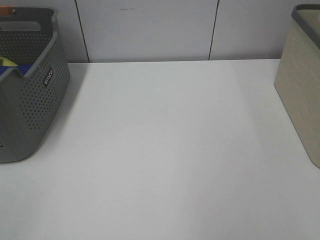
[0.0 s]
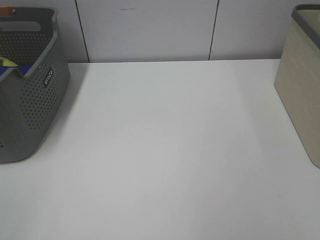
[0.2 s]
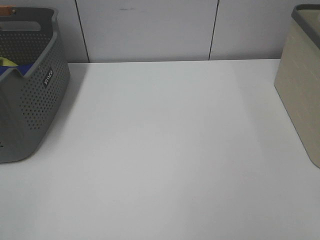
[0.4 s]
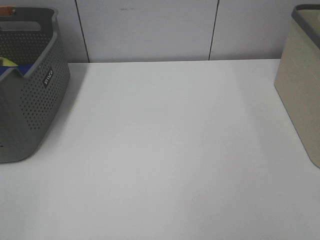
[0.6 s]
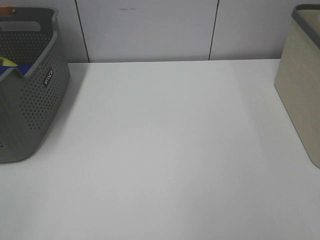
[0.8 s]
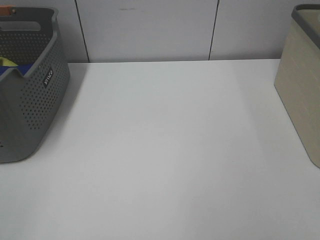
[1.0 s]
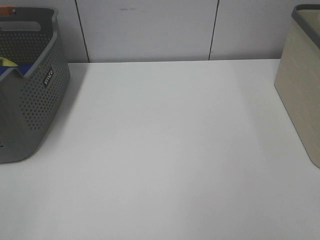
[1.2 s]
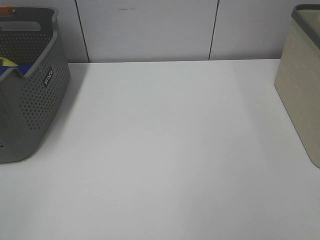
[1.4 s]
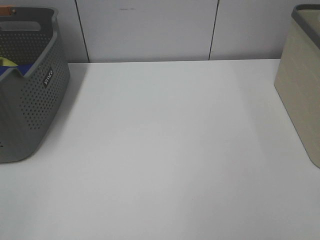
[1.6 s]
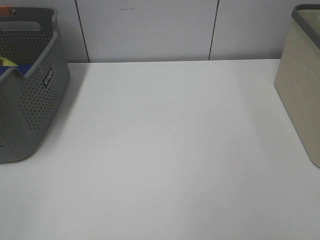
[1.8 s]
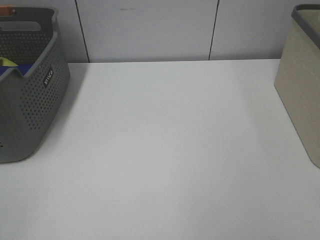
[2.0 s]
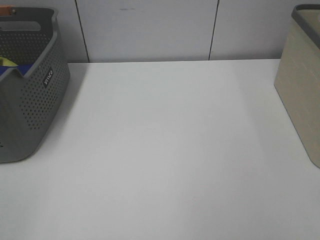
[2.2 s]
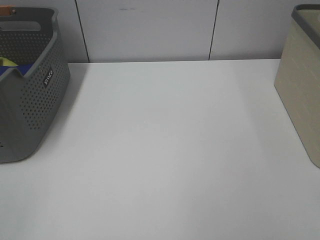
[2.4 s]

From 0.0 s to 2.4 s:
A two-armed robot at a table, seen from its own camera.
From 1.2 s to 2.4 s: Neither gripper changes place.

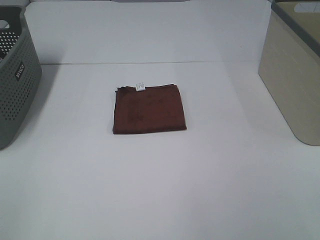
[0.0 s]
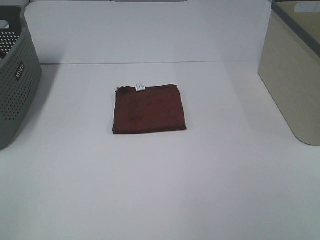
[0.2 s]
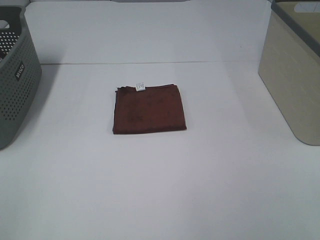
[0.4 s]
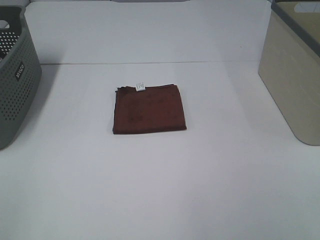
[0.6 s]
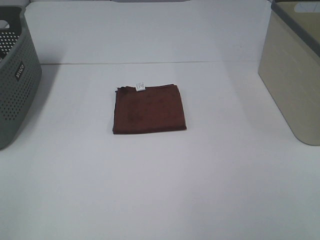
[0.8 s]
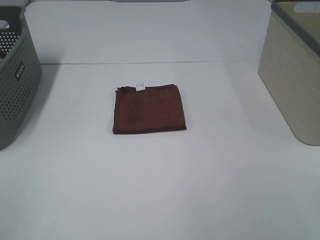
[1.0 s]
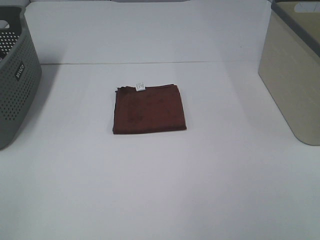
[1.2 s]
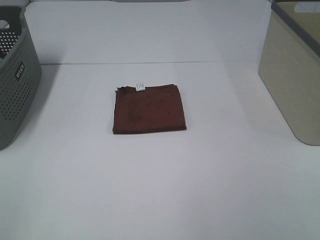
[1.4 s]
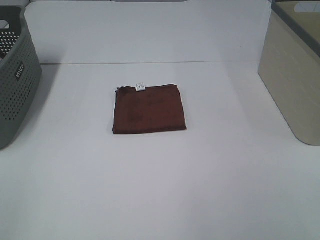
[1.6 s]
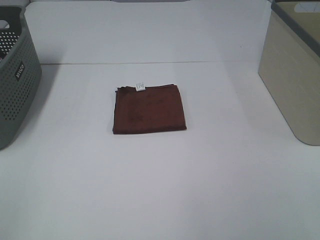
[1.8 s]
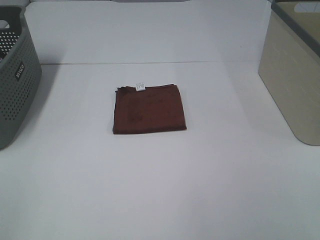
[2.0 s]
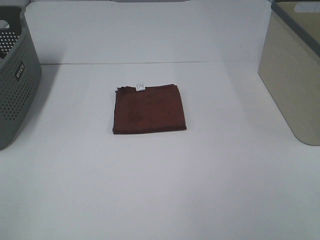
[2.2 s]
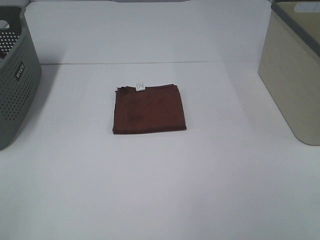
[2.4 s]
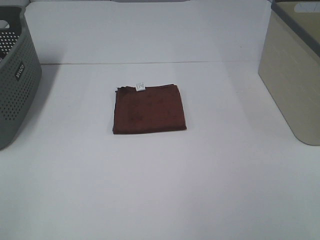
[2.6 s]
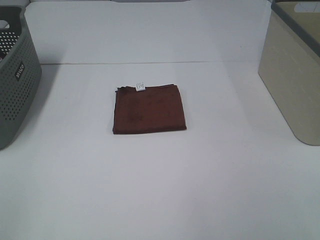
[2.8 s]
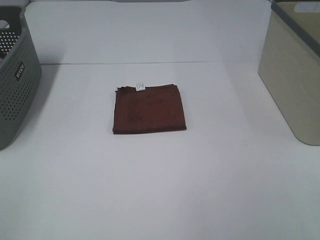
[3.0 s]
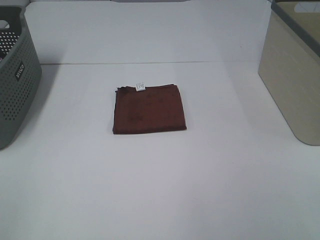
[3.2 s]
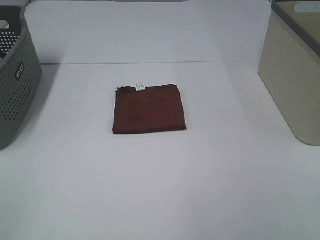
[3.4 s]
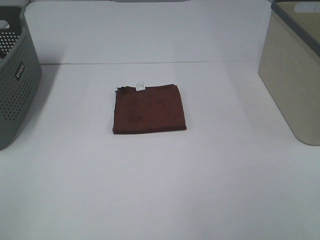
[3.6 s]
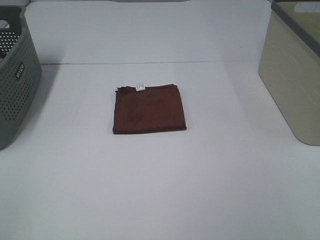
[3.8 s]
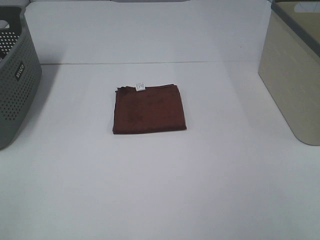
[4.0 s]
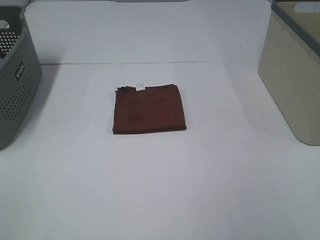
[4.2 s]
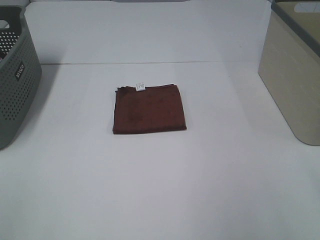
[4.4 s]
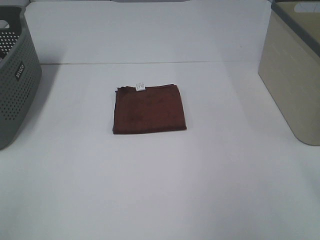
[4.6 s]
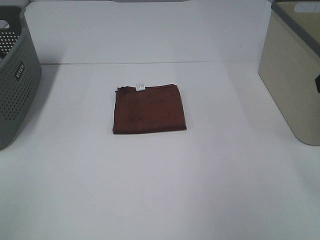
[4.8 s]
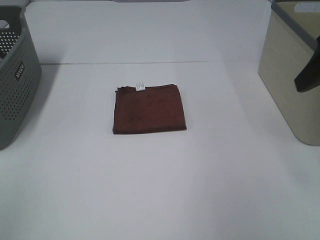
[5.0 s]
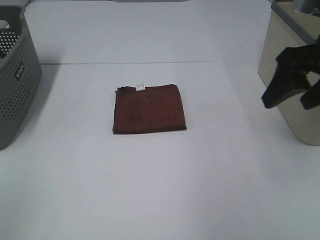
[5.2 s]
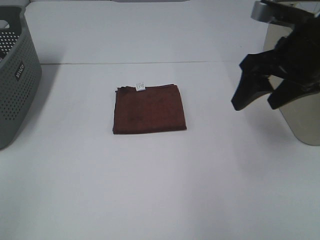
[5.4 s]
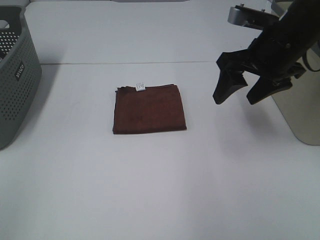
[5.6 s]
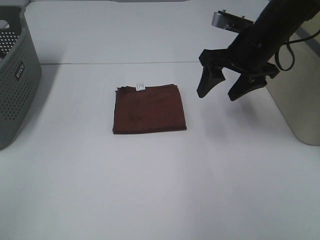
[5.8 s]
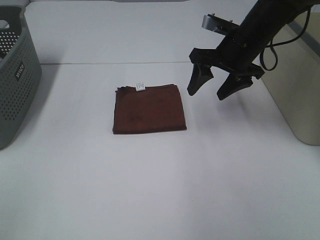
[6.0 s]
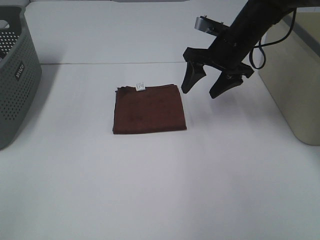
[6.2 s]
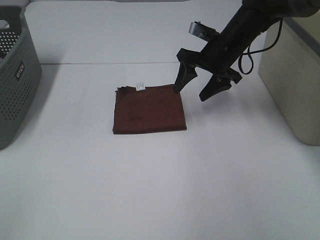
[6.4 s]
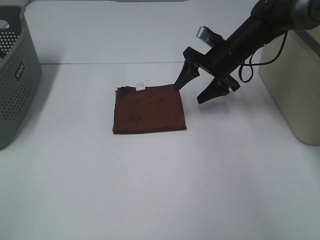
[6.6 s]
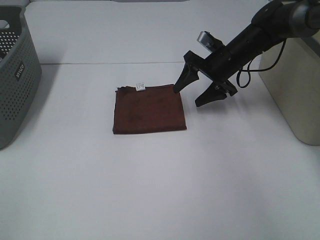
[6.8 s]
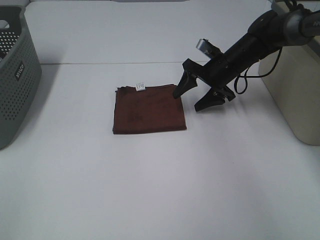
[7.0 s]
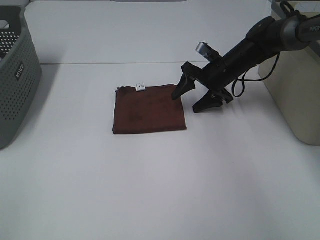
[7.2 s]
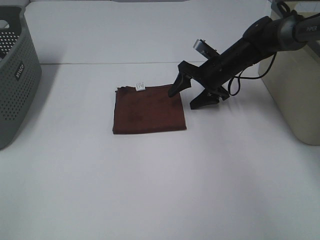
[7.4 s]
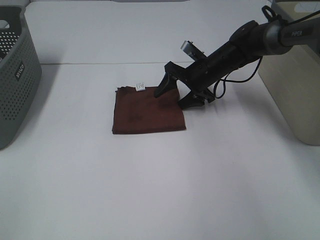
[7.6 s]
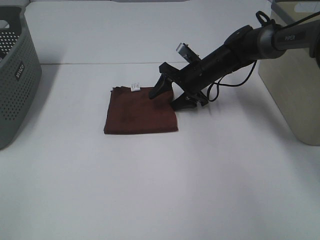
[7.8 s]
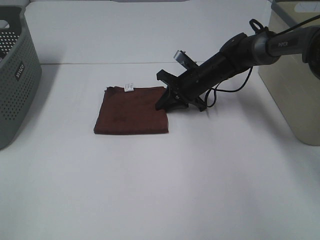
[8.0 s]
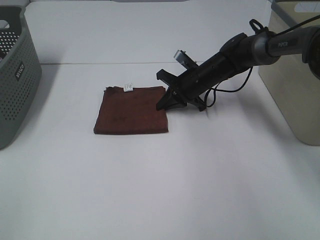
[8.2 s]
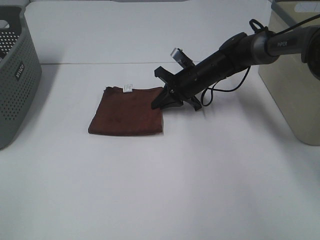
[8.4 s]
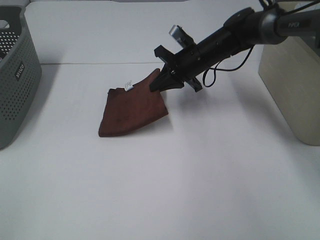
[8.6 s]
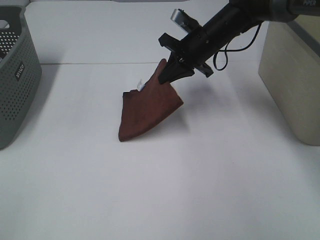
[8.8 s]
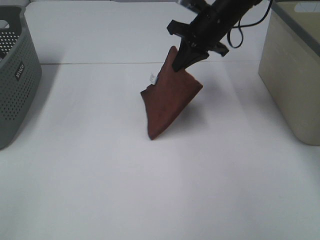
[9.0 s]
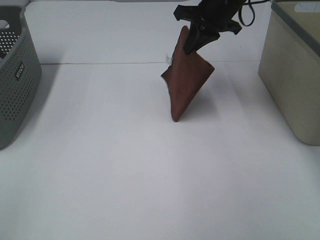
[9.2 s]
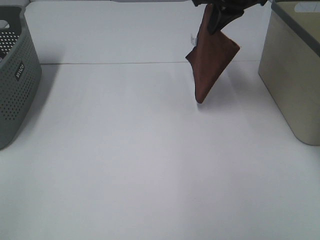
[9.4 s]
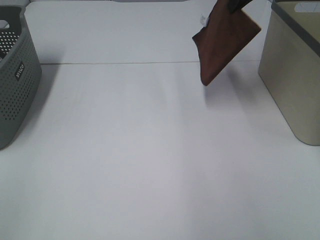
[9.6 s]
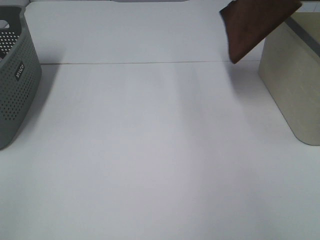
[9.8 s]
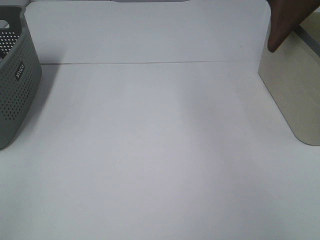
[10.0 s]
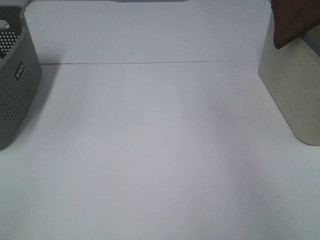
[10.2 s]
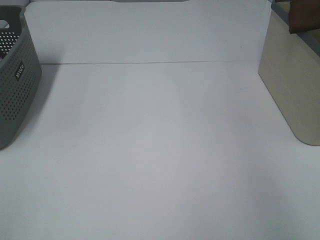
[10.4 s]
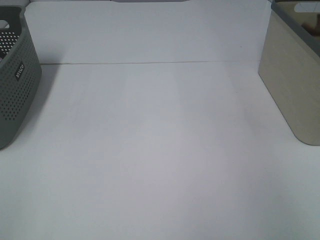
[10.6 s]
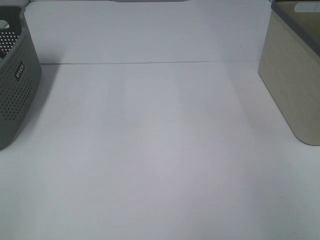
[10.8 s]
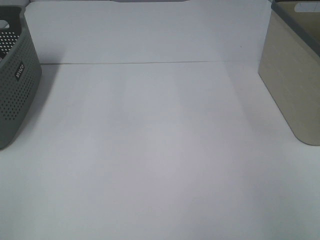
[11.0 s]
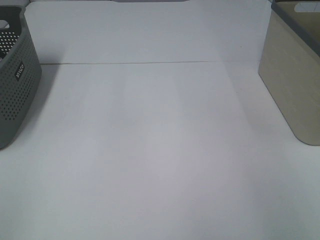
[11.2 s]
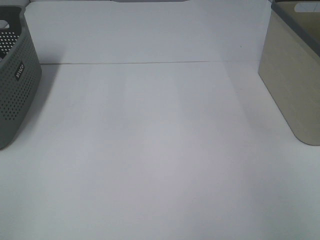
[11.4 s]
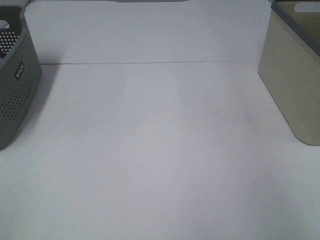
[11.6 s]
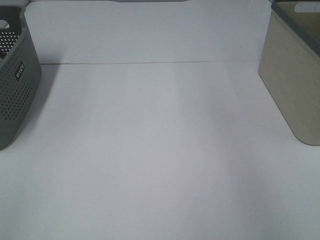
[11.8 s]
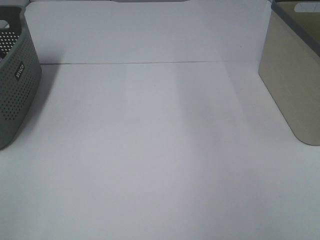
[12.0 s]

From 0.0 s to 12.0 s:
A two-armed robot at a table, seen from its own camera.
Step, from 0.0 s to 8.0 s: Right hand: grab the folded brown towel.
Step, from 8.2 s to 11.0 s: Right hand: place the brown towel in right basket.
From 0.0 s to 3.0 s: Neither gripper changes place.
From 4.4 s to 6.0 s: The right gripper travels forward, to the left and downward by some 35 cm.
From 6.0 s to 7.6 s: The right gripper goes some 15 cm downward and forward.
From 7.6 s to 9.0 s: The right gripper travels upward by approximately 15 cm, and closes.
From 9.0 s to 10.4 s: The right gripper heads to the right and upward, covering some 35 cm.
From 10.4 s to 12.0 s: The right gripper moves to the left, some 10 cm, and opens up.

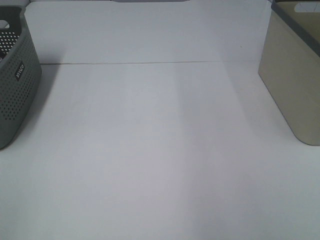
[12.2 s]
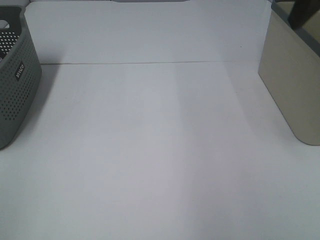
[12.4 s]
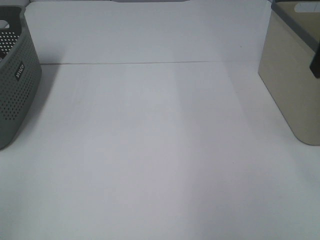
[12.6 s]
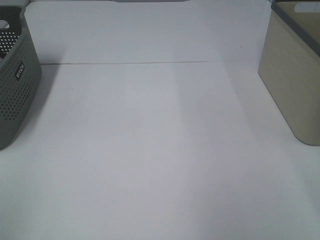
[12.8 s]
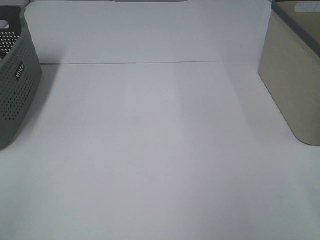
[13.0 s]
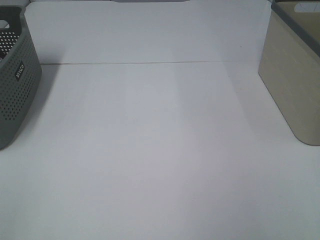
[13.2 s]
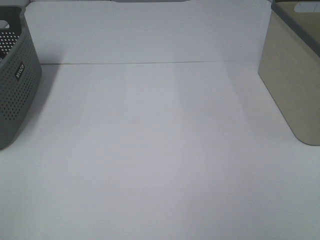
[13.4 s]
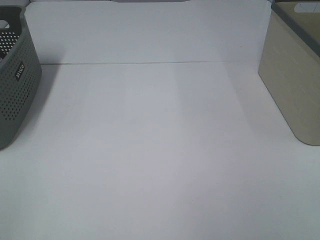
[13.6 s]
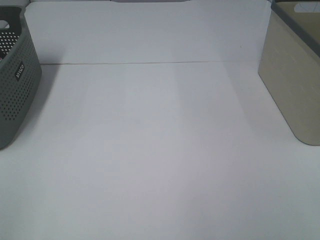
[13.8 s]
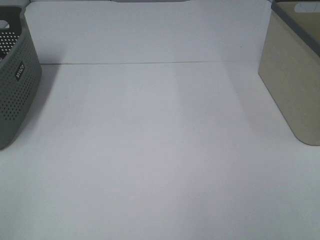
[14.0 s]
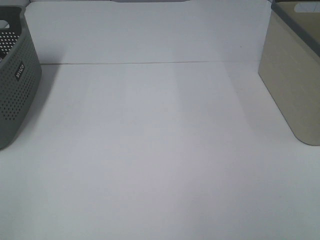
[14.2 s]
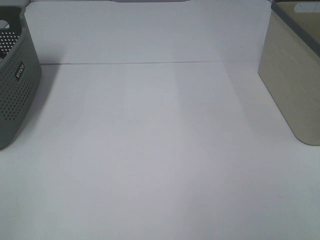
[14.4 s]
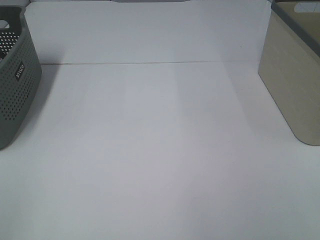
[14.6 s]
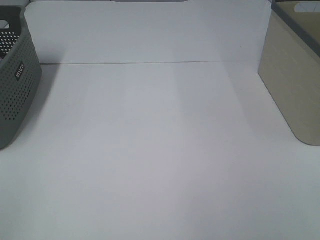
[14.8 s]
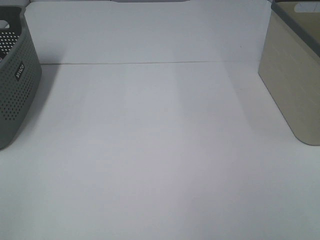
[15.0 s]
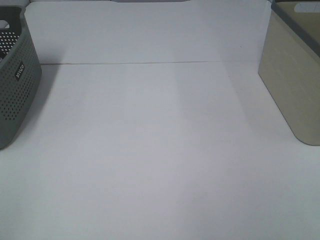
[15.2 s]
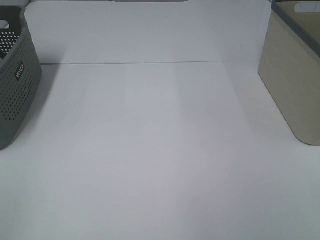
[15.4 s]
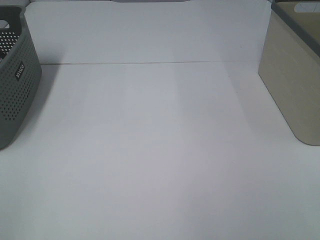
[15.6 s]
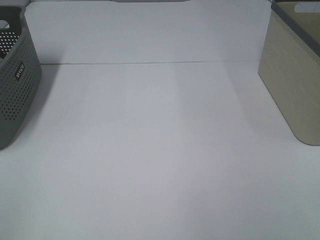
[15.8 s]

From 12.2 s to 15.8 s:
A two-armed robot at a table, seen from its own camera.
From 14.0 s to 15.8 s: The two grippers keep their place.

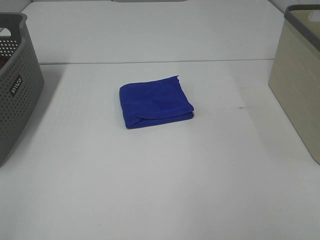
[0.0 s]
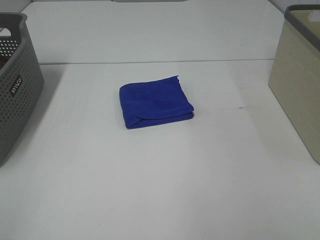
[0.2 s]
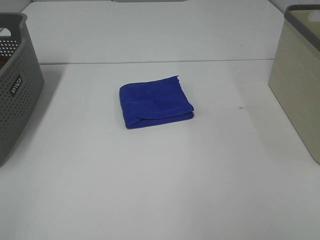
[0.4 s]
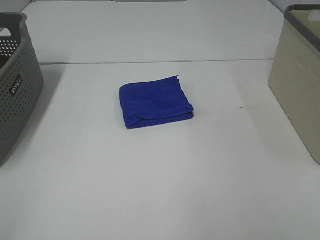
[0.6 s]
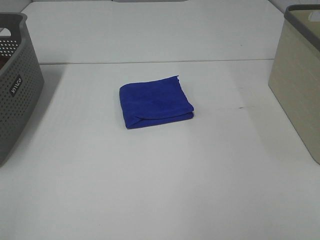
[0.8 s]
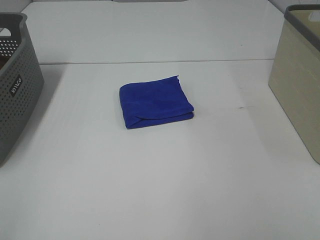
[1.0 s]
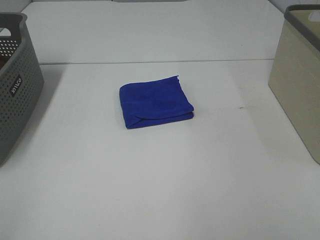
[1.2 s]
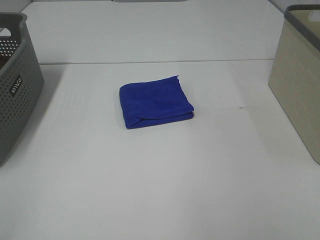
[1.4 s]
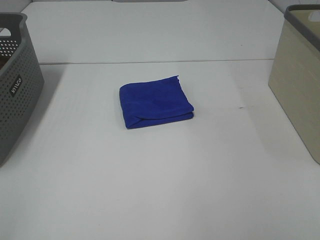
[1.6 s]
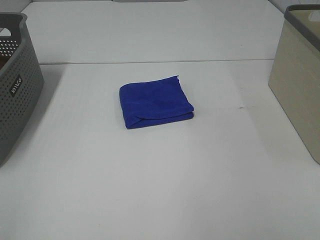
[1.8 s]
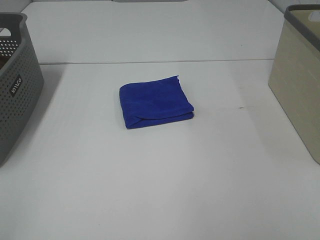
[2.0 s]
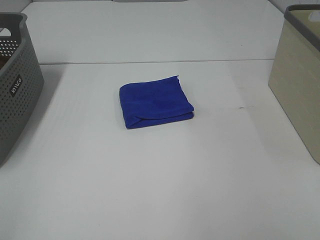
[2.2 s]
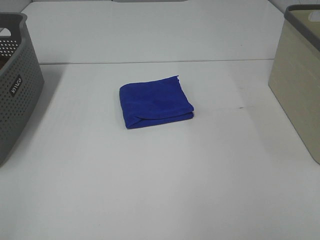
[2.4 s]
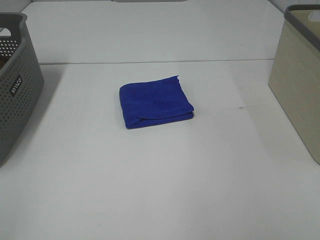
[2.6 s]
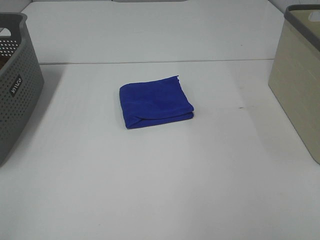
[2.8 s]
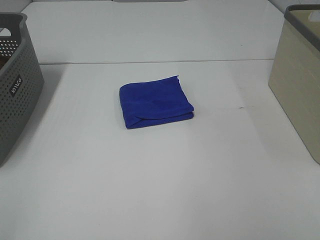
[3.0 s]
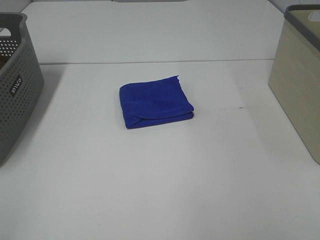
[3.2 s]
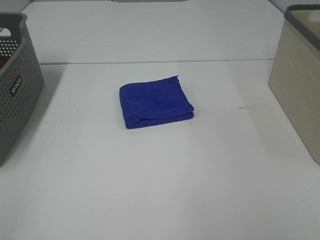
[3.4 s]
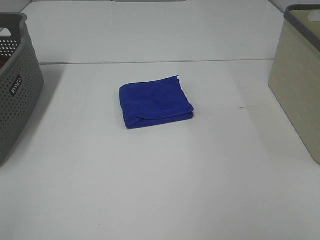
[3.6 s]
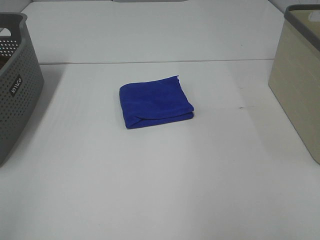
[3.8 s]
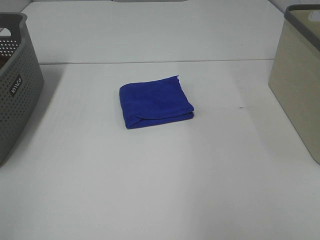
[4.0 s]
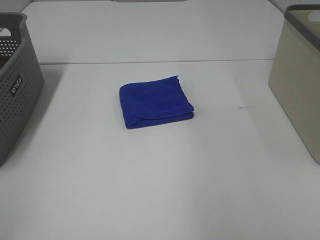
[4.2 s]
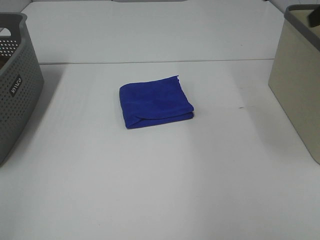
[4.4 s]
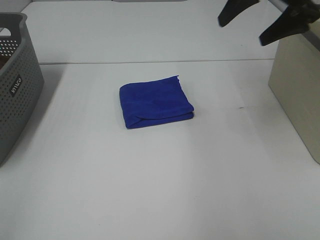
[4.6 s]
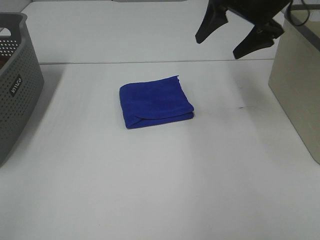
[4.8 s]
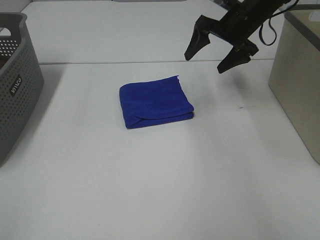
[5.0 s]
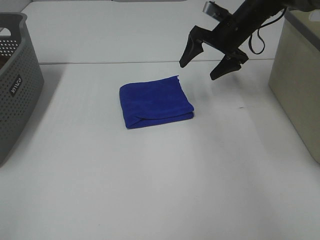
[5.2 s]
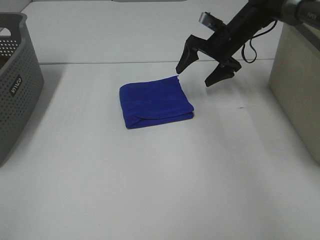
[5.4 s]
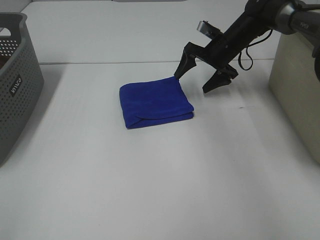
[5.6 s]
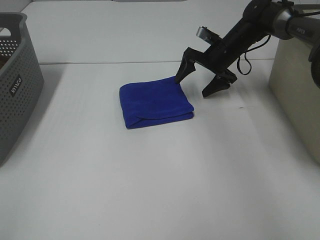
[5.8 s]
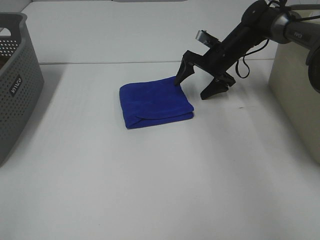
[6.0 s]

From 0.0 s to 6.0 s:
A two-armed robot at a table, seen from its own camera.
From 0.0 s to 3.0 s: Neither gripper changes place.
From 4.4 s to 6.0 s: The right gripper goes roughly 35 cm downward and forward.
